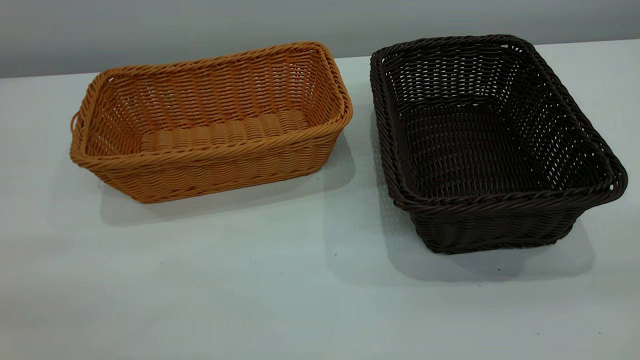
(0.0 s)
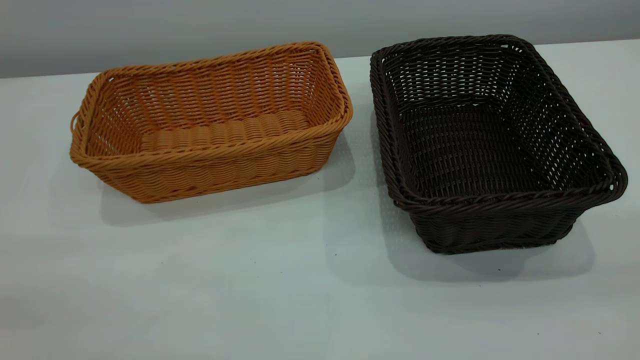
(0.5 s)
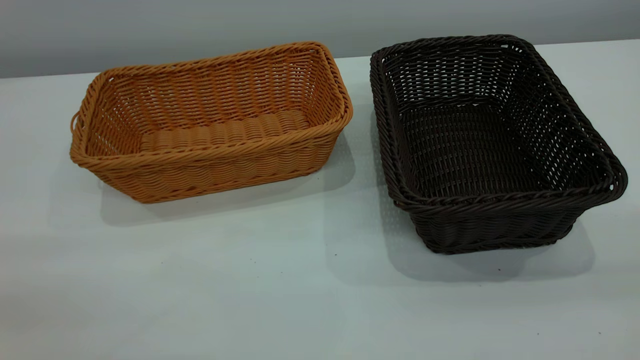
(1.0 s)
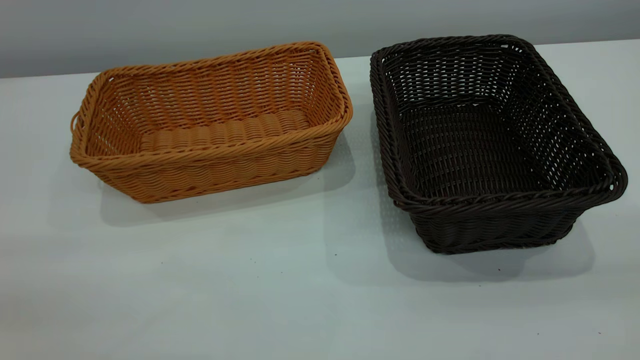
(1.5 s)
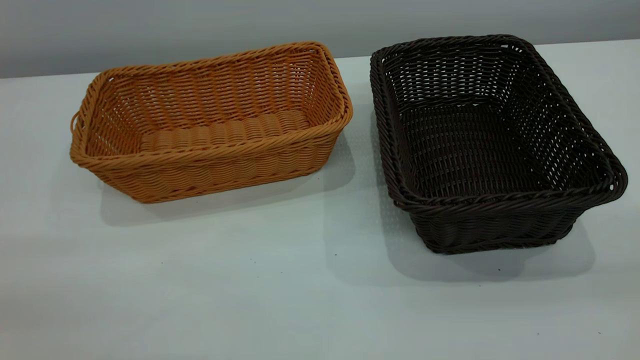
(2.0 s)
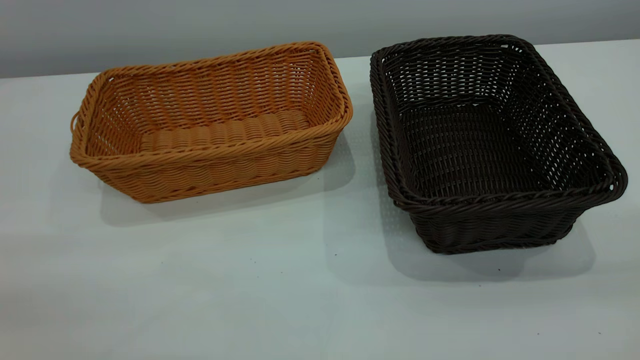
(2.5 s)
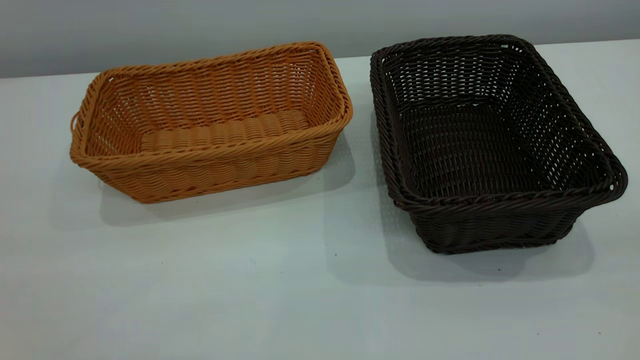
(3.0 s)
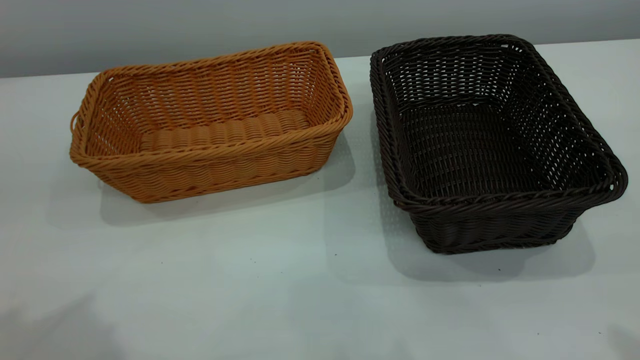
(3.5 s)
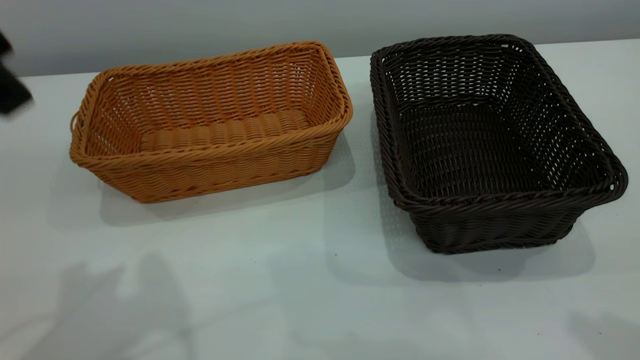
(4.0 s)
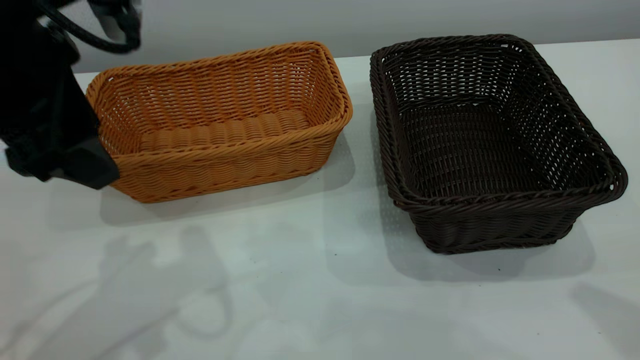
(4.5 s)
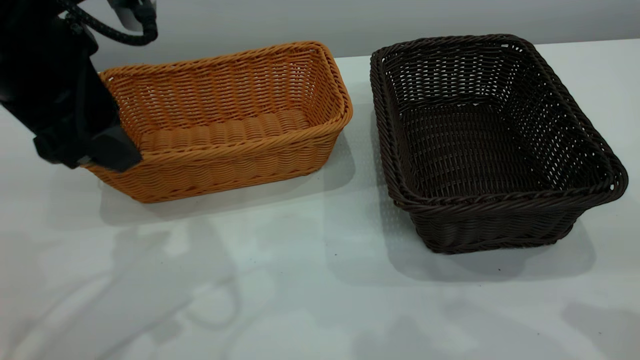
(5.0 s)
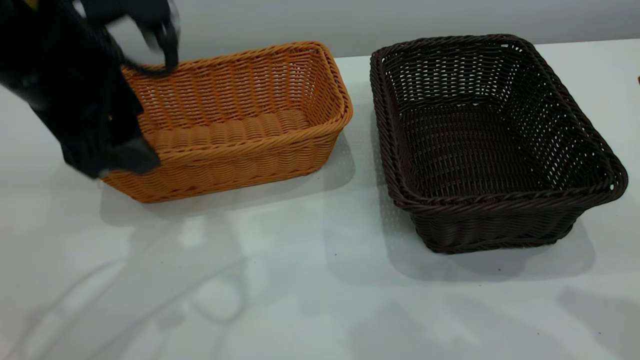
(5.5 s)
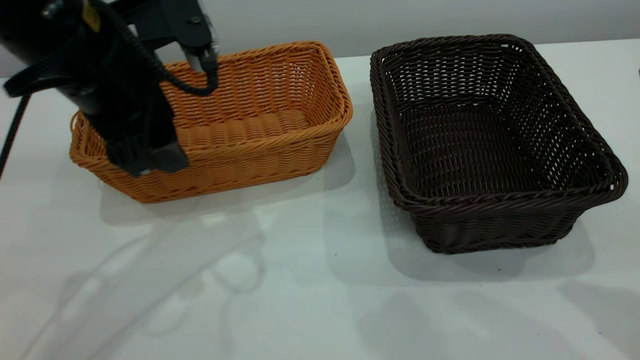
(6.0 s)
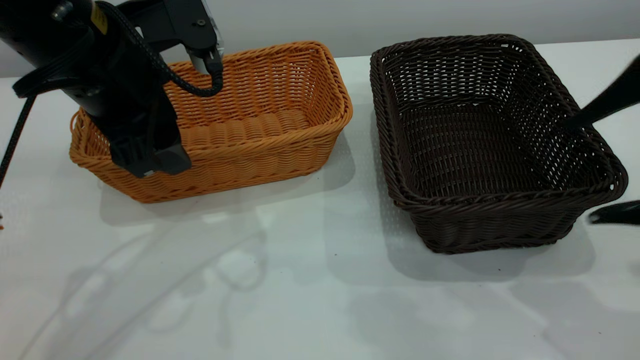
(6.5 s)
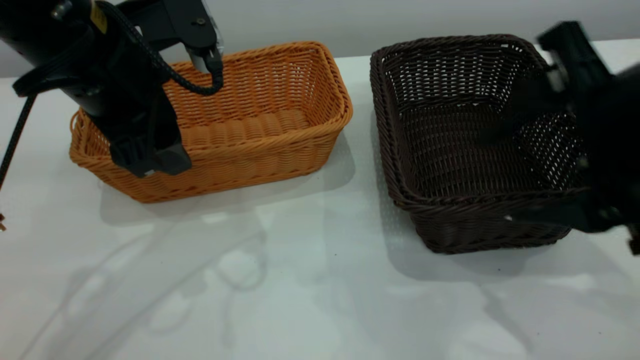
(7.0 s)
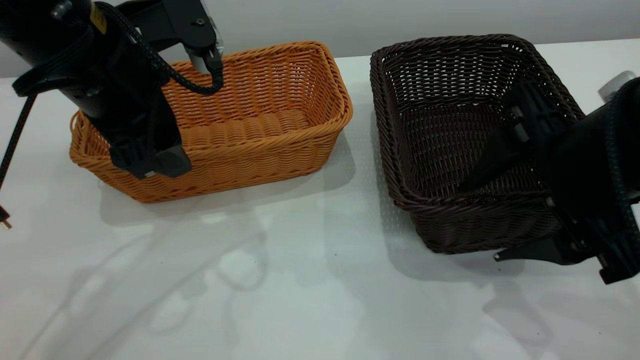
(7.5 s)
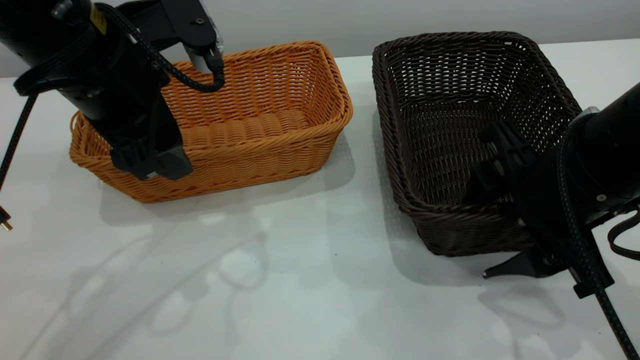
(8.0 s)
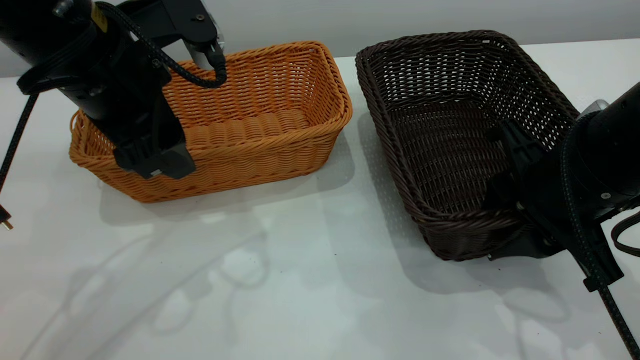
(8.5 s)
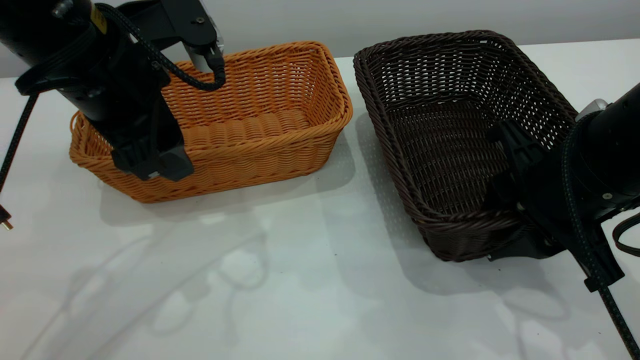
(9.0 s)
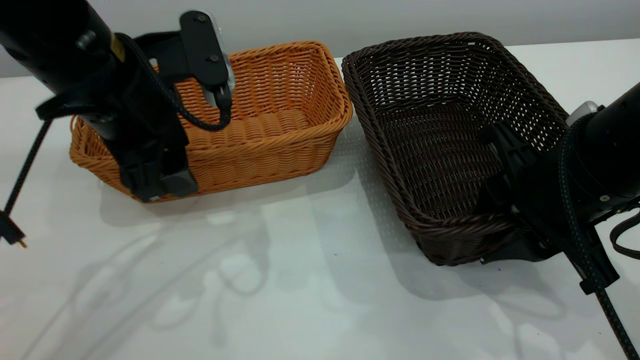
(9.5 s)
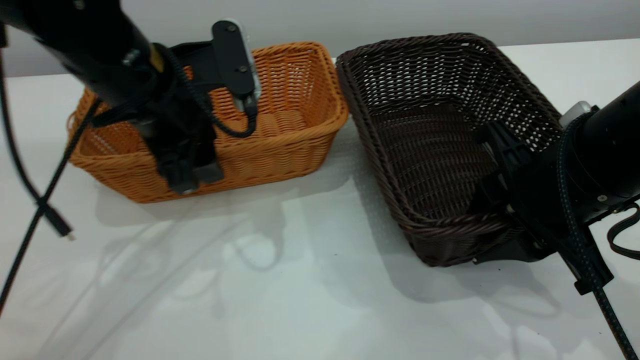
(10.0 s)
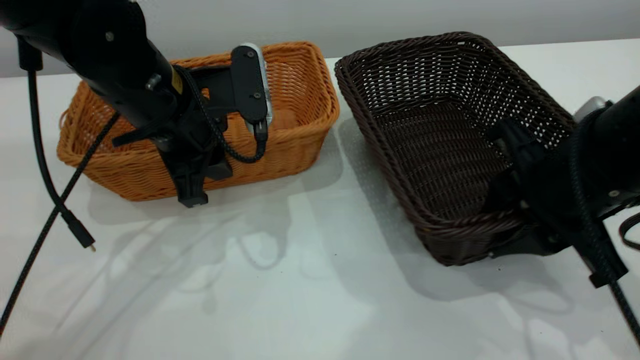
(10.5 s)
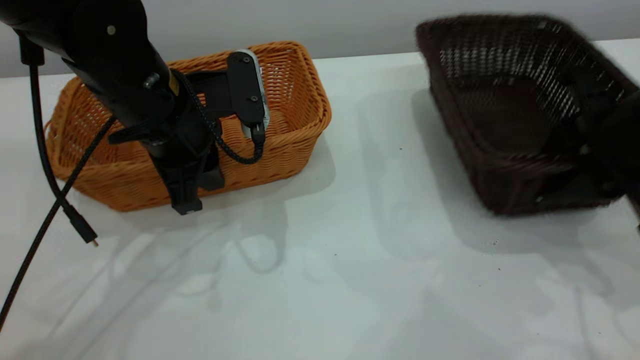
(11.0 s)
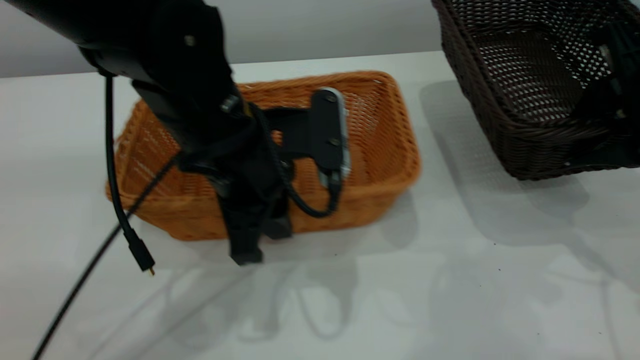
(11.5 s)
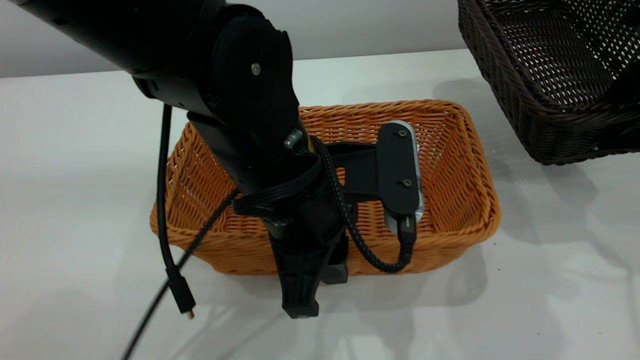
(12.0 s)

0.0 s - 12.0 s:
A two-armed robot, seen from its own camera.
Task of the whole recording: the left gripper grasp the brown basket and place it in the center of the table, the right gripper grasp the black basket and place it inside the brown one.
Step, 0.0 s - 11.0 s: Pick up the light basket with the right gripper.
0.0 s - 2.0 s: The two grippers keep their place.
2.0 s - 4.0 s: The left gripper heads forward, covering approximately 20 cm, and opens.
4.0 s - 6.0 s: The right gripper is displaced downward by roughly 10 cm, and opens up. Meanwhile the left gripper shifts roughly 15 cm downward and forward.
6.0 s - 8.0 s: The right gripper goes some 20 cm downward, to the left and forward.
8.0 s - 10.0 s: The right gripper closes. Meanwhile the left gripper shifts by roughly 5 cm.
10.0 s - 12.0 s: The left gripper heads to the right and backward, covering roughly 15 cm, and closes up; the right gripper goes approximately 10 cm to the right and upward.

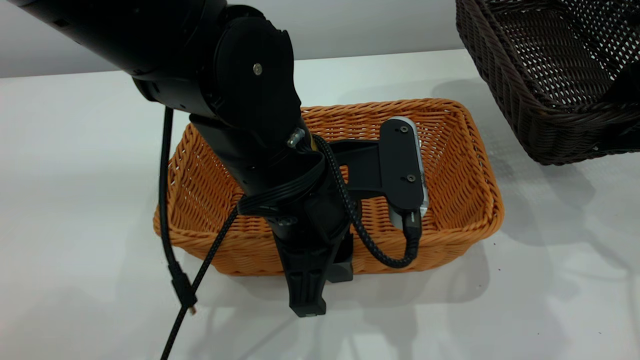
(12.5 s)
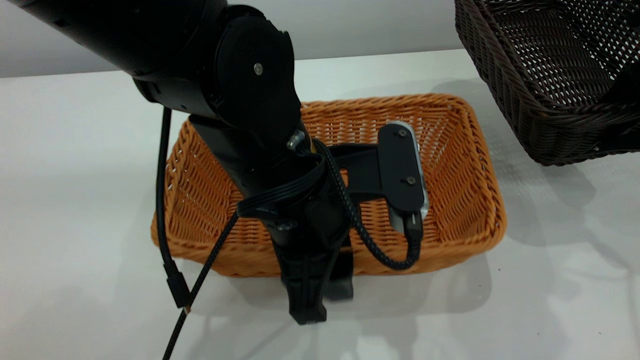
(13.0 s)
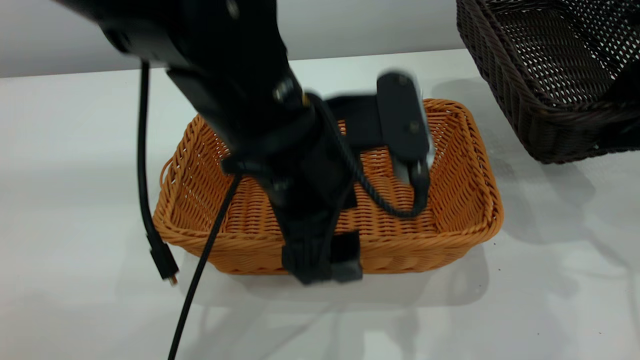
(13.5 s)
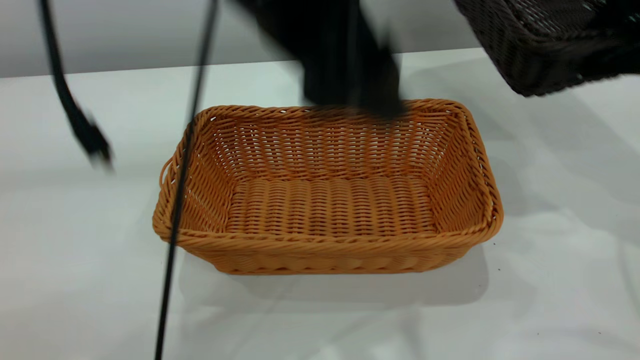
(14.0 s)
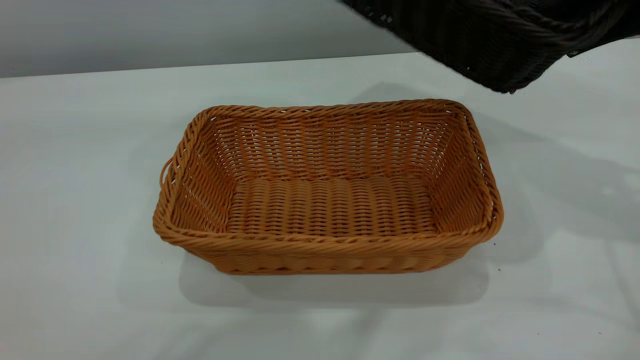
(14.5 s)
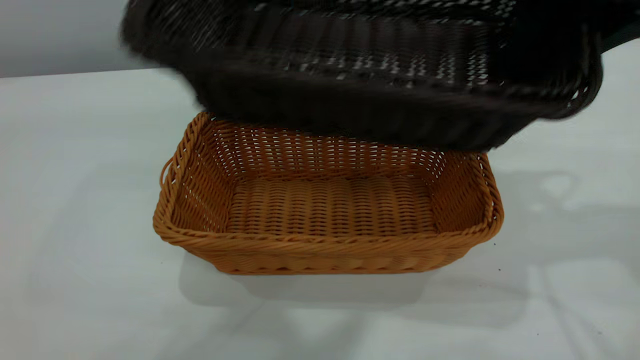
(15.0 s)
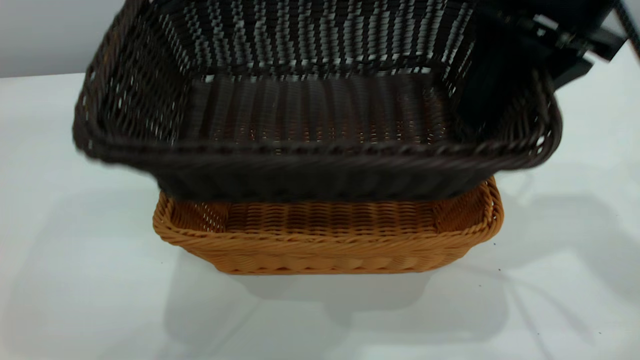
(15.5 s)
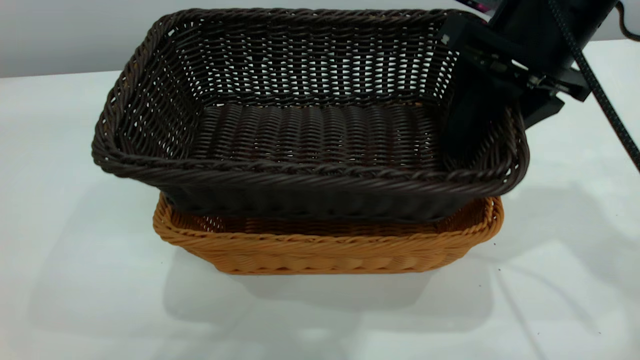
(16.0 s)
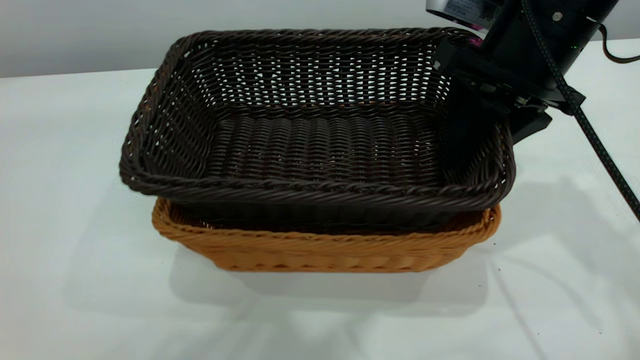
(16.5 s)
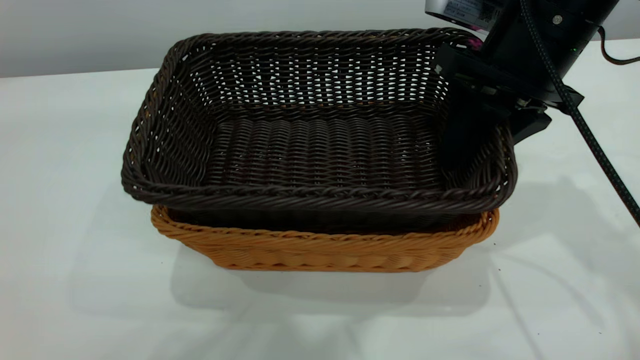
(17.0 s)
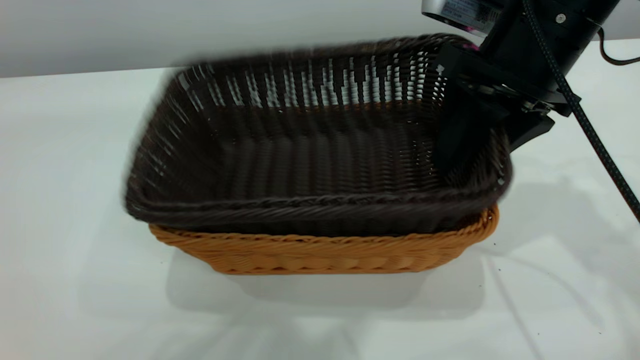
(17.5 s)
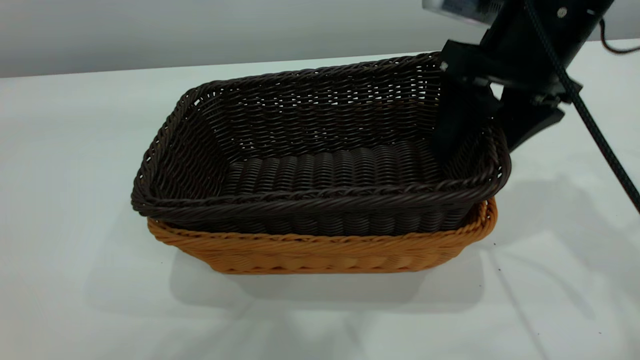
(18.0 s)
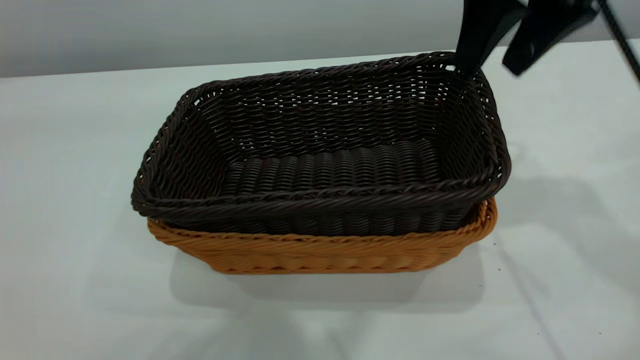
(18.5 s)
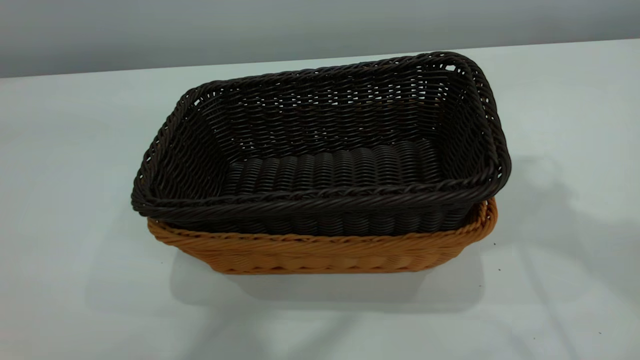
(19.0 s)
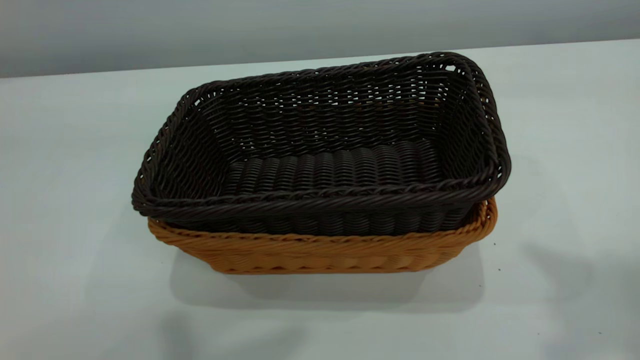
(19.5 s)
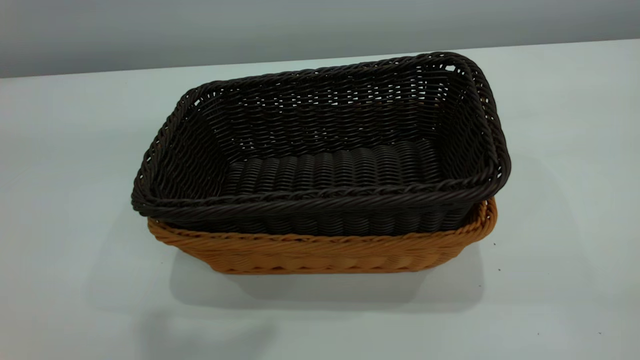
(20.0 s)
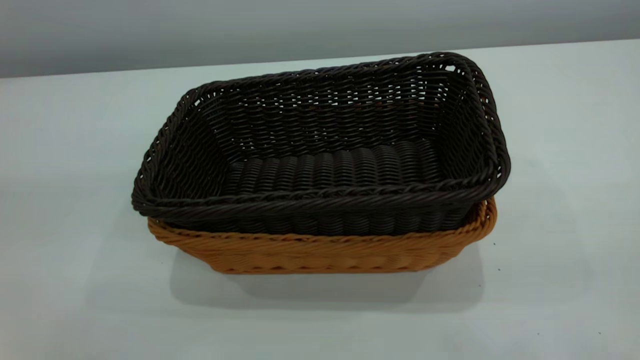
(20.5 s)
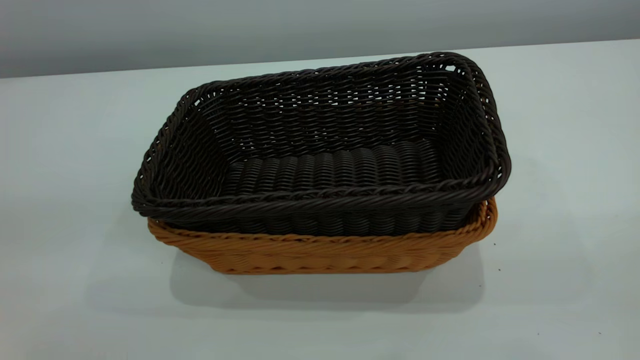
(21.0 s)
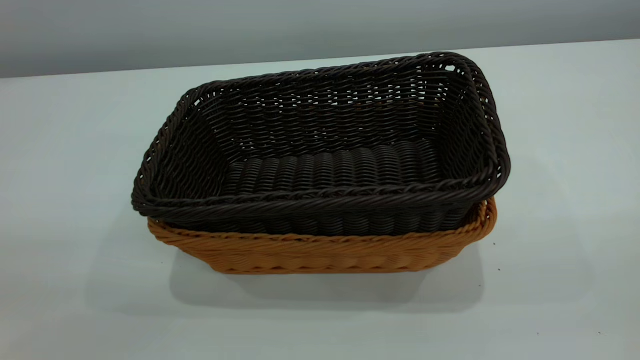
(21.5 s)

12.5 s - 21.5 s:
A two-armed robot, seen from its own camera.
Task of the whole recording: the left gripper grasp the brown basket and place it in the center of the table, the right gripper grasp the black basket and place it inside the brown one.
Step, 14.0 s - 18.5 s: Place the dark basket on top of the light basket.
12.5 s - 14.5 s: The left gripper goes about 35 cm upward, and opens its fingers. Meanwhile the right gripper shifts some 10 cm upward.
14.5 s - 17.0 s: The right gripper is displaced to the left and downward by some 10 cm.
17.0 s - 19.5 s: The right gripper shifts approximately 35 cm upward and backward, and closes up. The left gripper ends up about 5 cm from where it was, and closes up.
